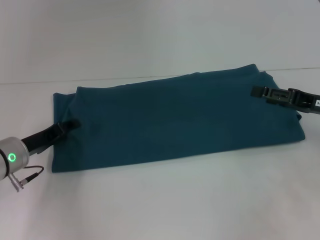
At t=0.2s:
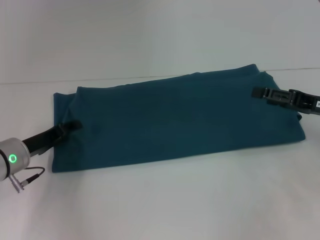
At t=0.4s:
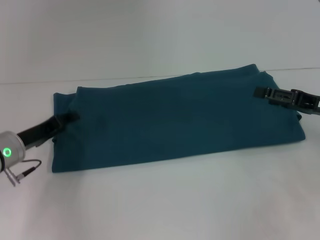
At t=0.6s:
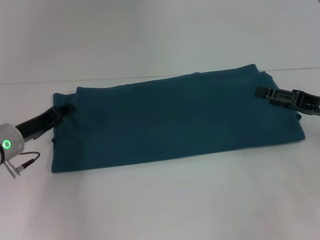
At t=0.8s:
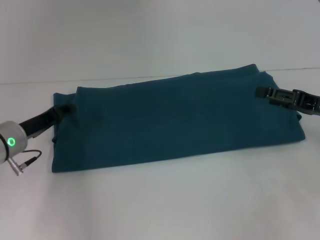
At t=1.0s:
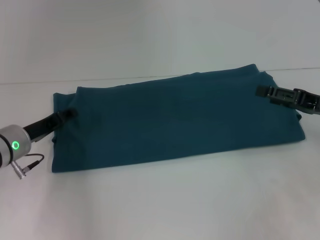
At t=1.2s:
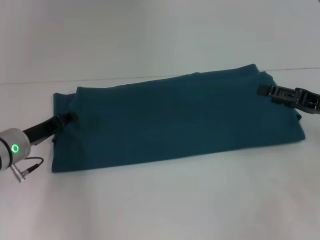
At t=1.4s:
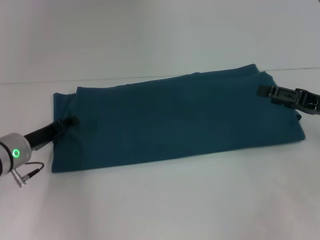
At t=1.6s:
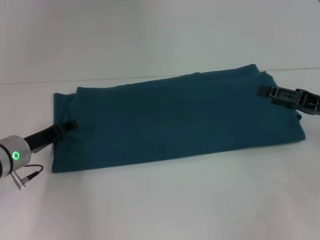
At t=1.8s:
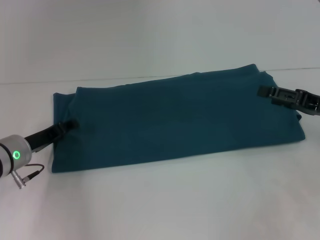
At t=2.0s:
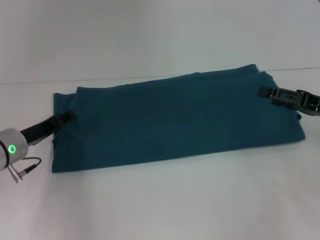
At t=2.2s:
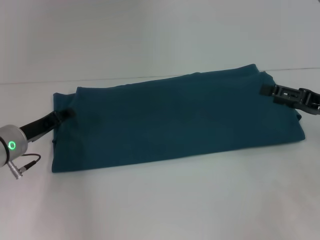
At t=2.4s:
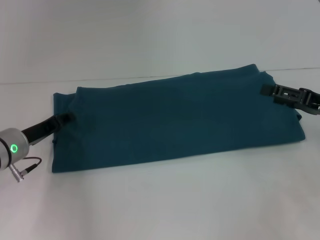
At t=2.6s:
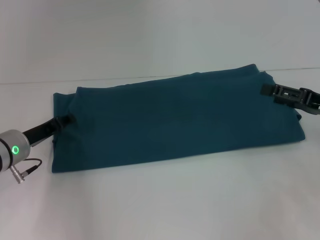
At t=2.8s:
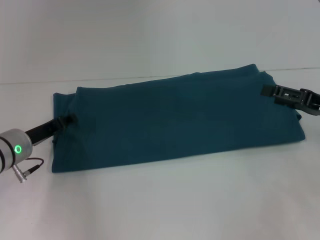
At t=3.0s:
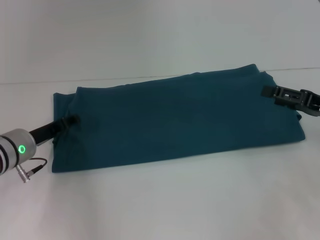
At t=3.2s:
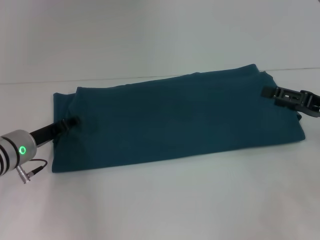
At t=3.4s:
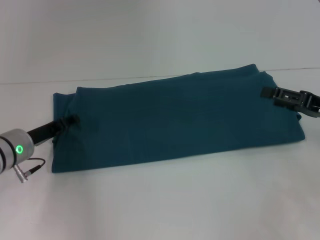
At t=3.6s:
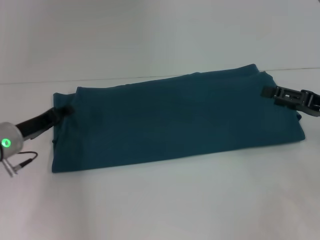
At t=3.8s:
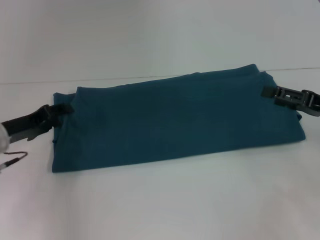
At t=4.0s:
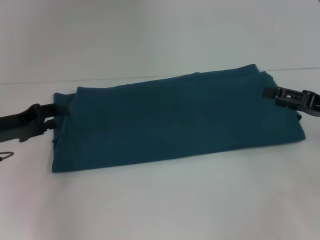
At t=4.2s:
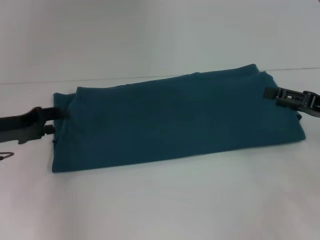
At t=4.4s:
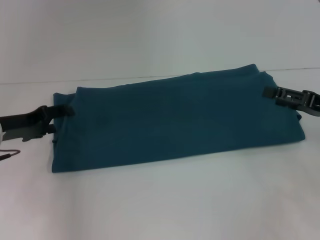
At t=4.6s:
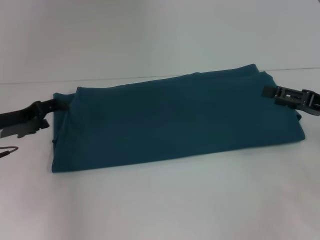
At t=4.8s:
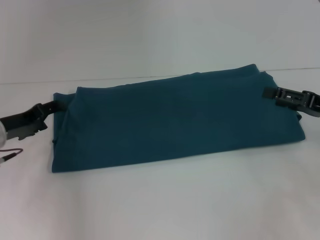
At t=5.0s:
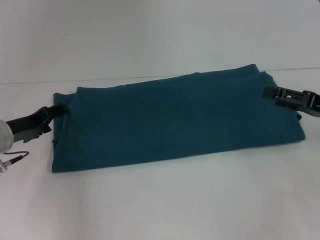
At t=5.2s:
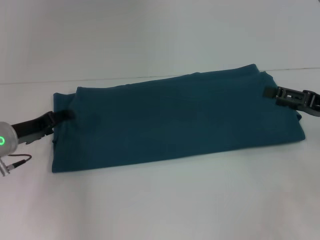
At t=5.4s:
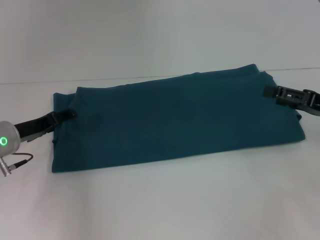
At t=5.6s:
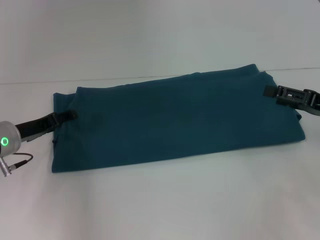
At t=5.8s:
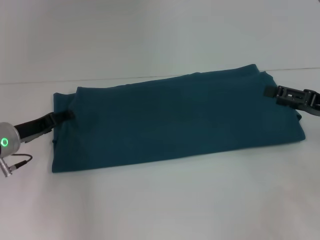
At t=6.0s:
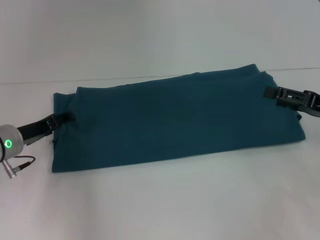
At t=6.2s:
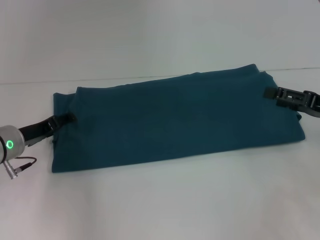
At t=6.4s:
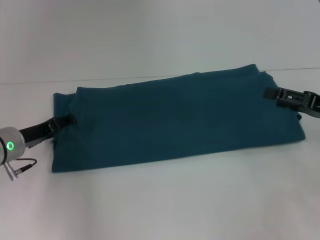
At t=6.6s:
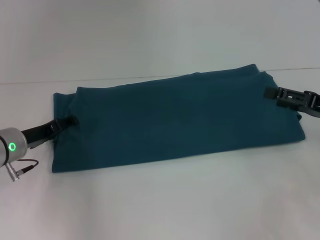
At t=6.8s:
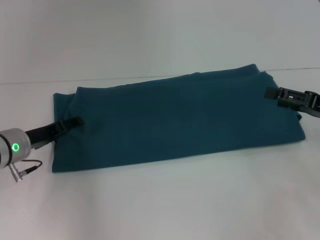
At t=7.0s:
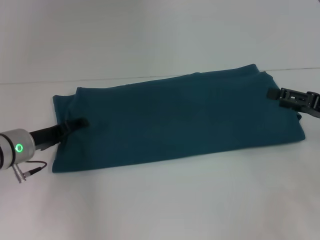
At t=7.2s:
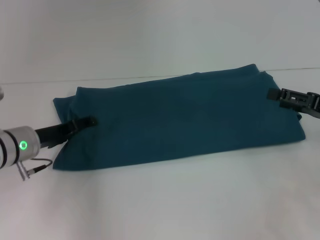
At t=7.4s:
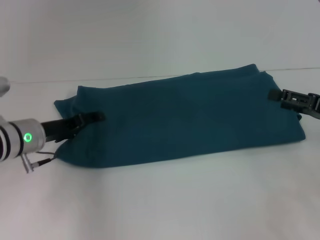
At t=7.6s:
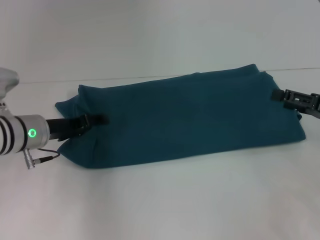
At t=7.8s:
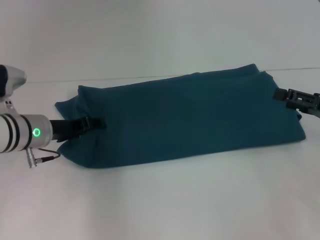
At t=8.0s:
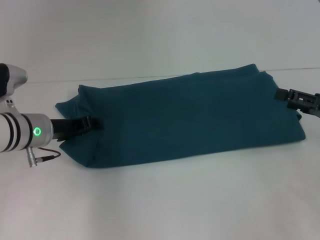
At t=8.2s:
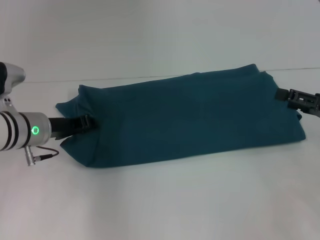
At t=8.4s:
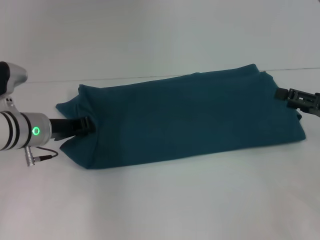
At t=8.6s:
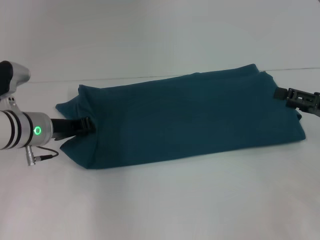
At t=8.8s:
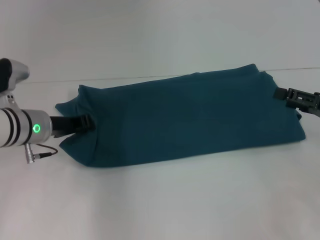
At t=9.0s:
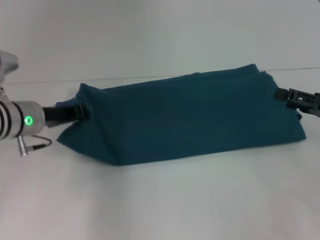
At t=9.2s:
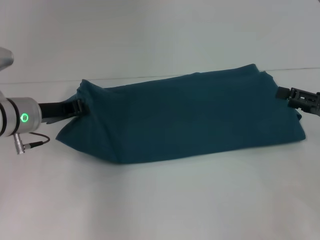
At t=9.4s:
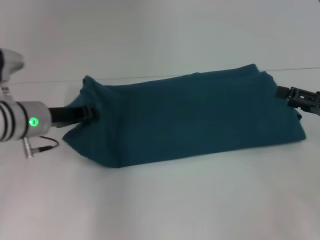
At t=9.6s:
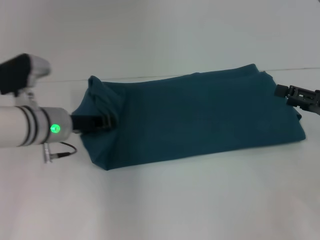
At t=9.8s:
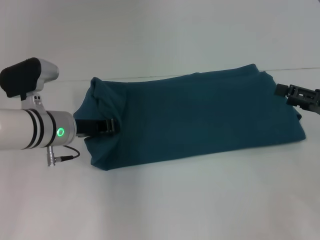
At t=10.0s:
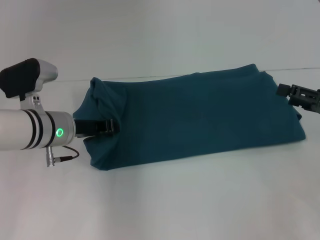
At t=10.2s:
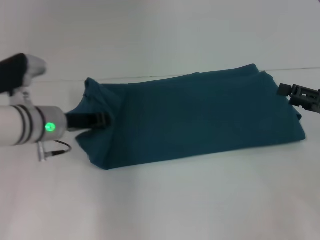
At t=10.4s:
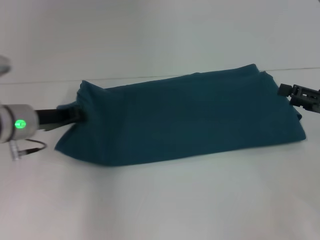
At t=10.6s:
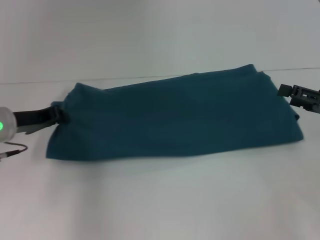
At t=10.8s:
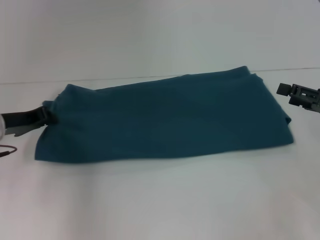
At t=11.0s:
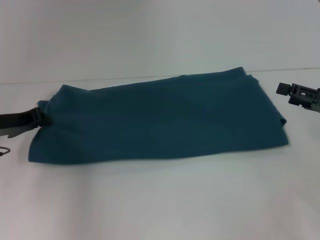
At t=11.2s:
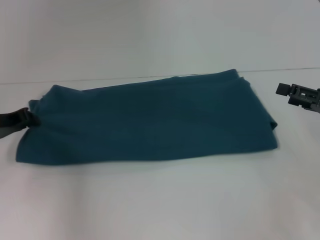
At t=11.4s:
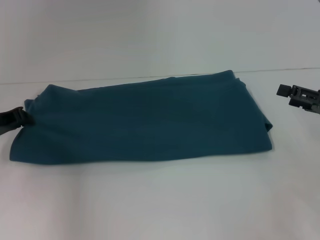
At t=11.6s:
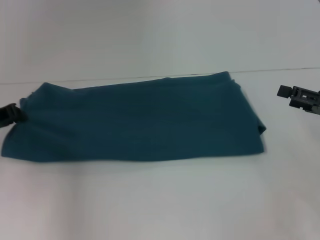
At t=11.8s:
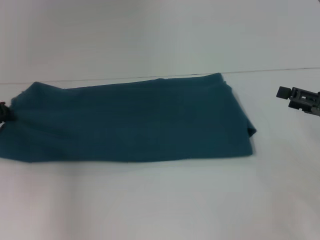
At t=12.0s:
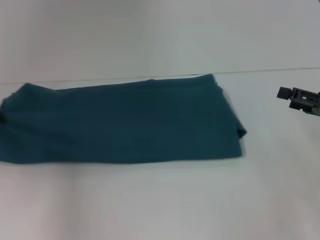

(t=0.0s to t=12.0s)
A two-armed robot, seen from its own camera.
t=0.0s - t=3.0s: There are only small adjustments of the grippers.
t=3.0s - t=4.4s: The left gripper shifts by some 5 cm.
t=4.4s - t=6.0s: The grippers move only a little.
t=6.0s - t=7.6s: There are only small adjustments of the grippers.
t=7.6s - t=9.0s: The left gripper closes its fingers.
t=9.0s - t=10.4s: The grippers move only a little.
t=10.4s - t=12.0s: The left gripper goes some 10 cm to the left.

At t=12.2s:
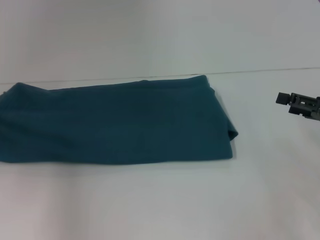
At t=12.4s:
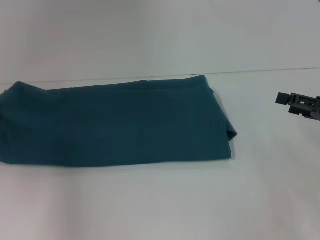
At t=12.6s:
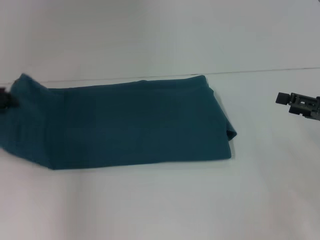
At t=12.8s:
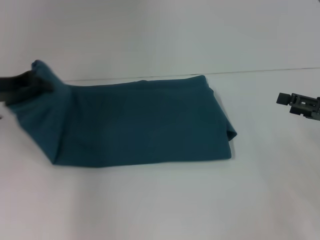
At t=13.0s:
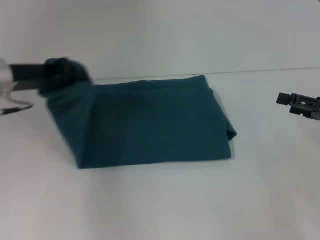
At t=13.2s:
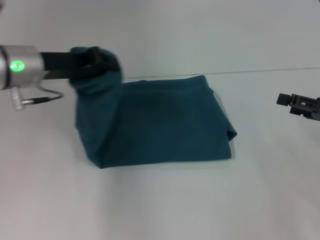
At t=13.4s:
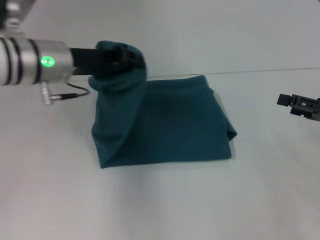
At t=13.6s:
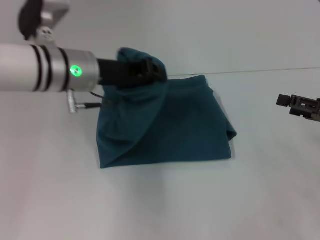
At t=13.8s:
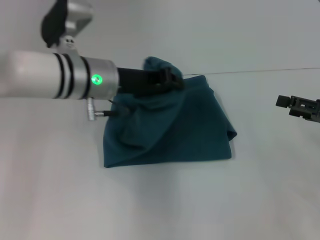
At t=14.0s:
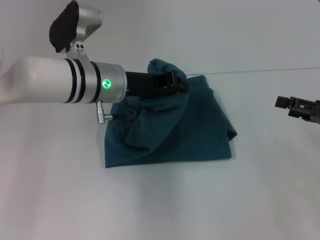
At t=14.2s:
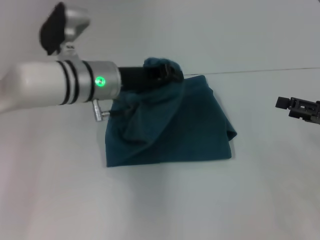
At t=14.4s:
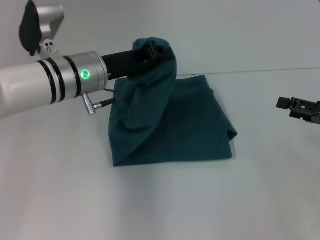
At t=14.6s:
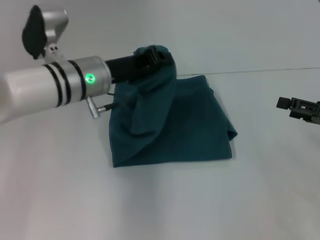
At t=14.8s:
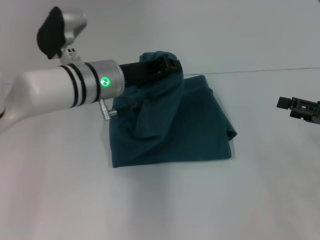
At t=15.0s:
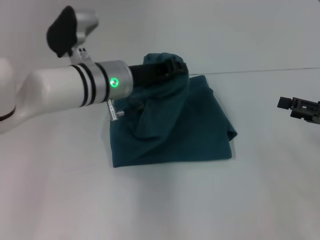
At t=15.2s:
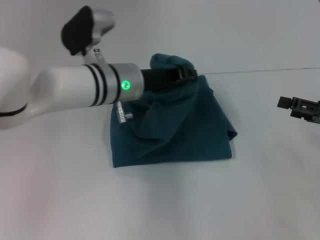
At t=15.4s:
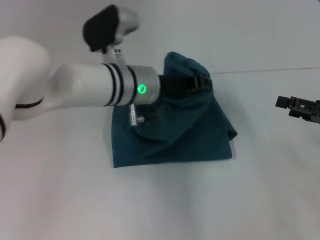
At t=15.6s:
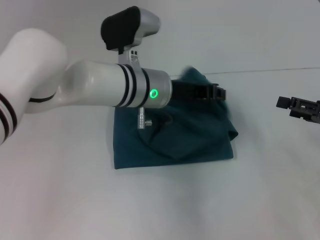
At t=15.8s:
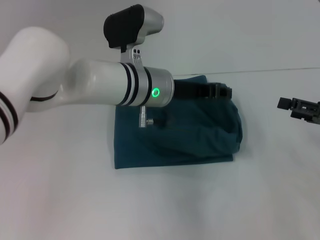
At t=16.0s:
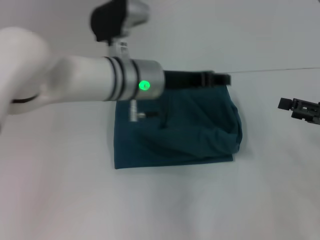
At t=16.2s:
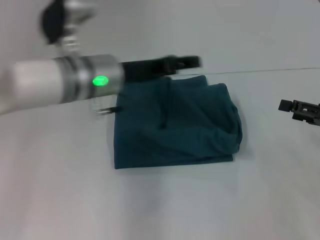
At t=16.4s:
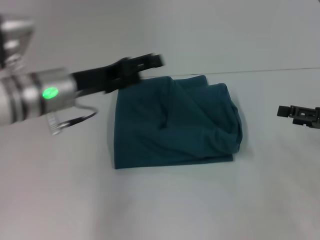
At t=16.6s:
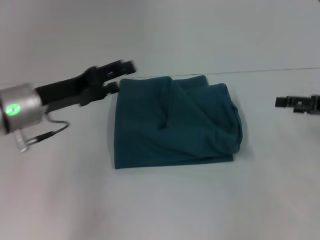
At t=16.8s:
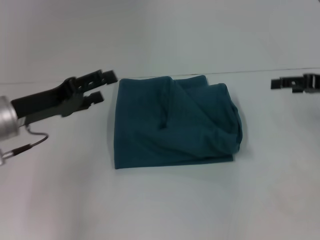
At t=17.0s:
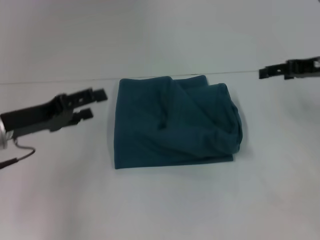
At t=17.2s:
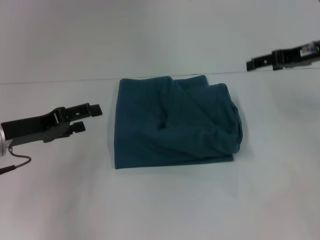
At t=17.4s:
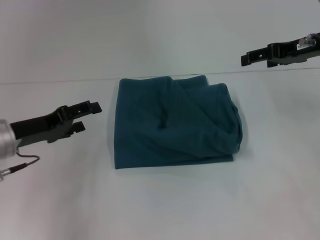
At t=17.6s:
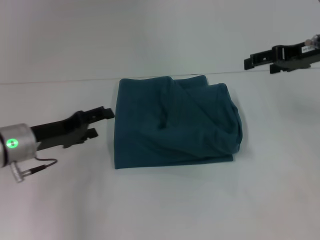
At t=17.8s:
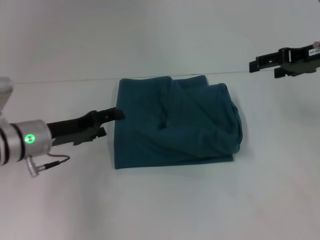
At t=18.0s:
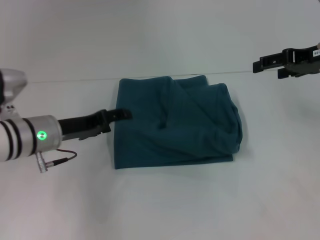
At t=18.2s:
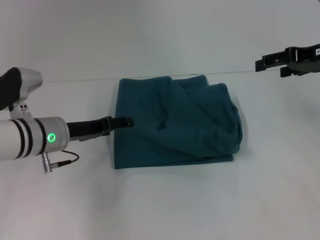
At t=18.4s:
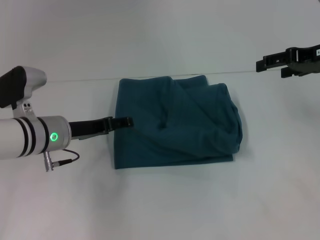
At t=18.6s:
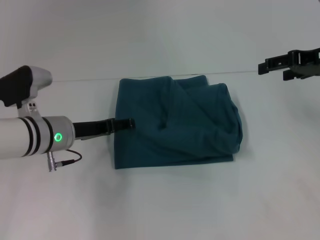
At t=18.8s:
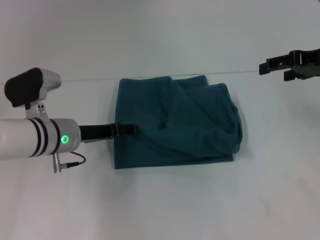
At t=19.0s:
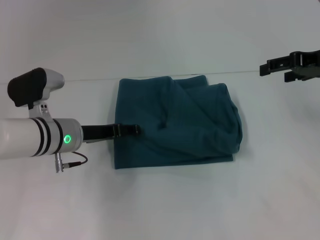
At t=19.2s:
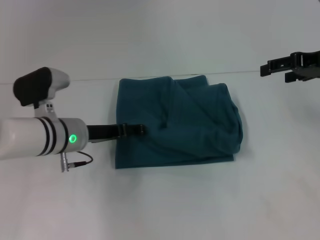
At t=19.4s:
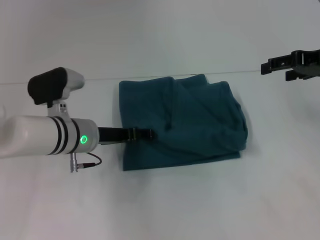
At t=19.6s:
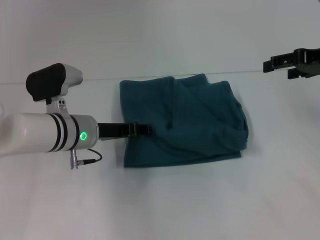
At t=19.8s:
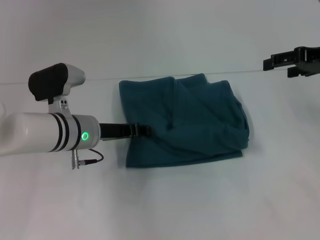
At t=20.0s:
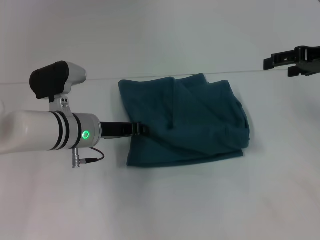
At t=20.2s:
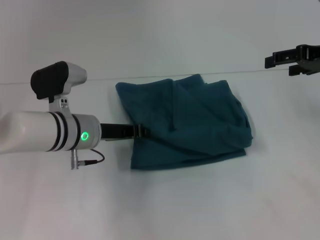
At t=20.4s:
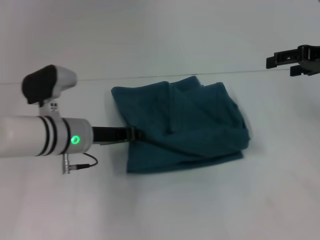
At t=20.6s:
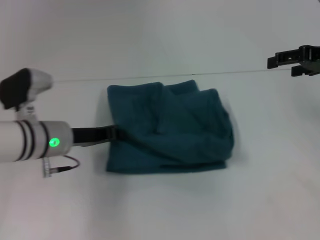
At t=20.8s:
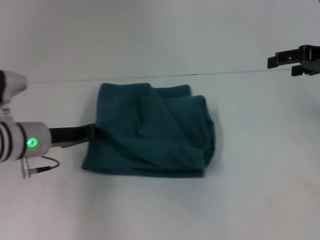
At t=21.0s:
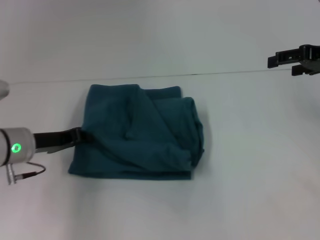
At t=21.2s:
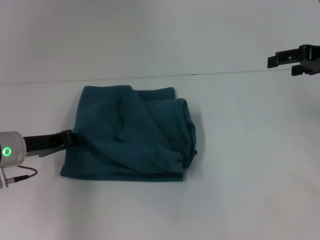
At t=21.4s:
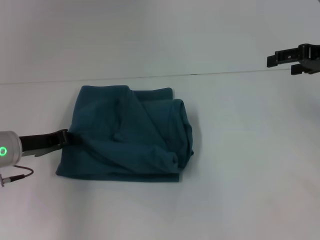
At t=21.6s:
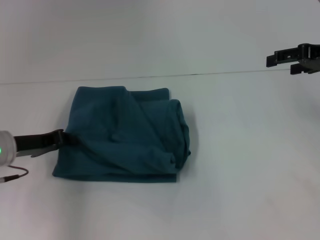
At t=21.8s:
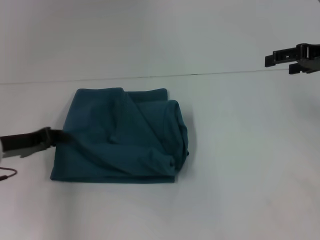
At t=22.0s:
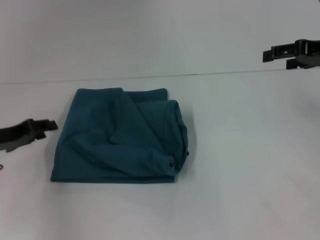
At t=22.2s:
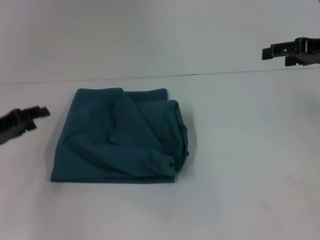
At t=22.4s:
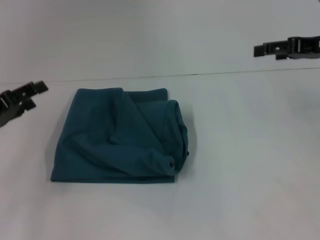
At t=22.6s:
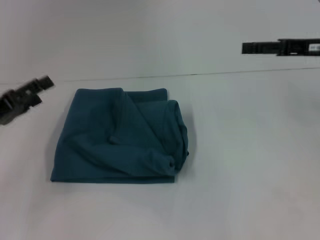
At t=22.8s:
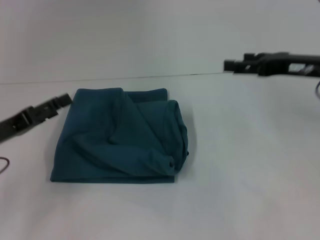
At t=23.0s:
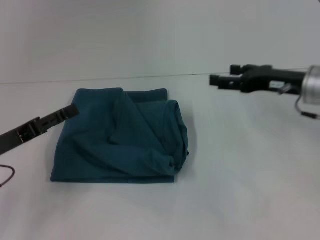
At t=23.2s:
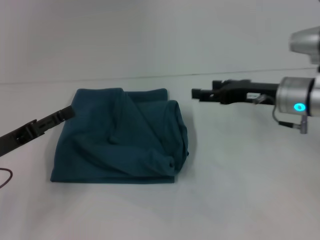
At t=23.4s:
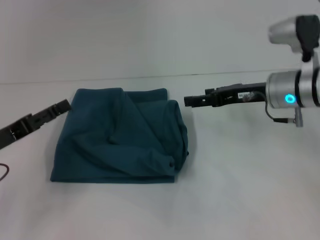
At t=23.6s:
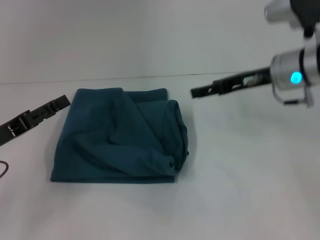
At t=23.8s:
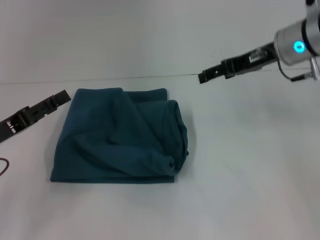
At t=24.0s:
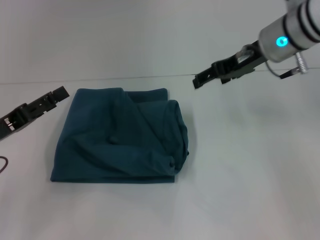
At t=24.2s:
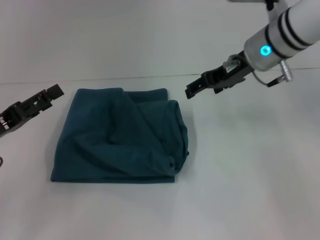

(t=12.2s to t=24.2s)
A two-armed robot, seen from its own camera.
Step, t=12.2s - t=16.0s: Fold the clothes to the left.
t=12.2s - t=13.8s: The left gripper shifts some 25 cm to the right.
t=13.8s - t=15.2s: There are only small adjustments of the grippers.
t=15.2s - t=16.6s: The left gripper heads to the left, covering about 15 cm, and opens up.
t=16.6s - t=18.2s: The left gripper shifts about 5 cm downward. The right gripper travels upward, forward and to the left by roughly 10 cm.
t=18.2s - t=19.8s: The left gripper shifts by about 5 cm, and closes its fingers.
t=19.8s - t=21.2s: The left gripper travels to the left by about 10 cm, and closes.
t=21.2s - t=22.6s: The left gripper is displaced to the left by roughly 5 cm, and opens.
t=22.6s - t=24.2s: The right gripper shifts approximately 15 cm to the left and forward.
